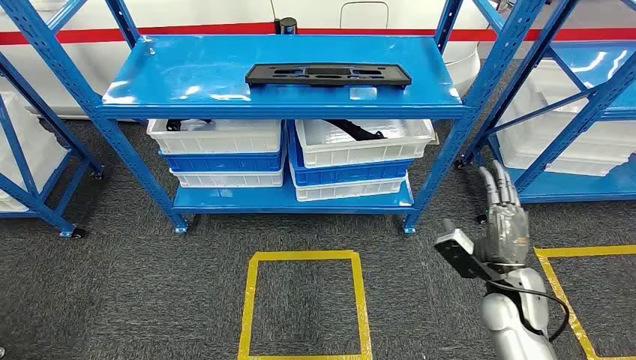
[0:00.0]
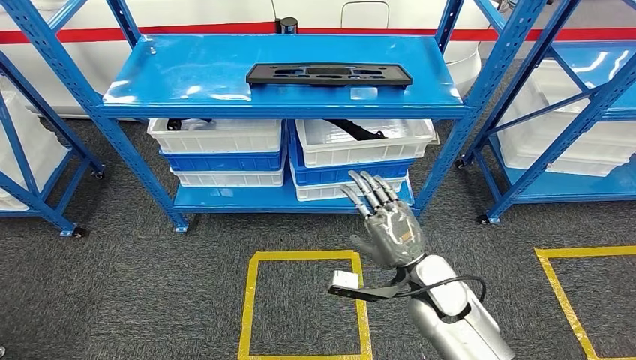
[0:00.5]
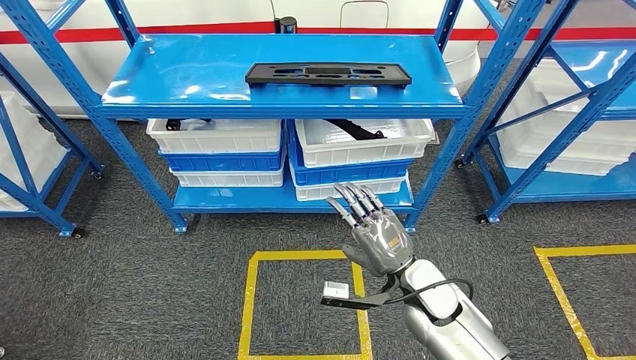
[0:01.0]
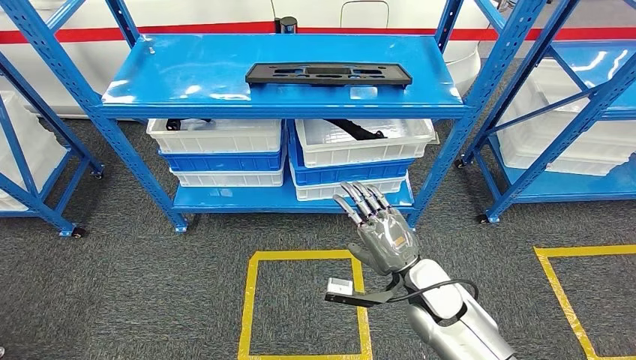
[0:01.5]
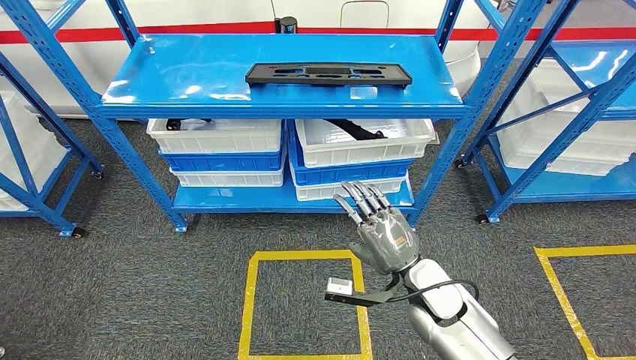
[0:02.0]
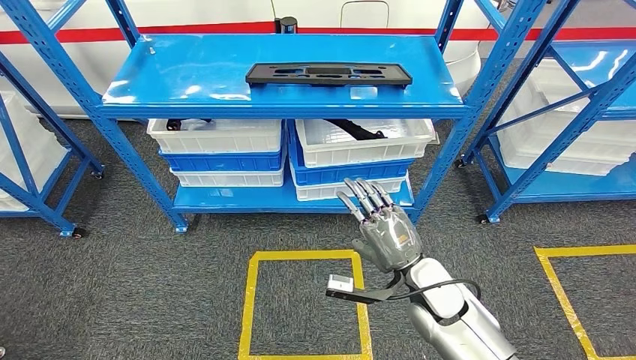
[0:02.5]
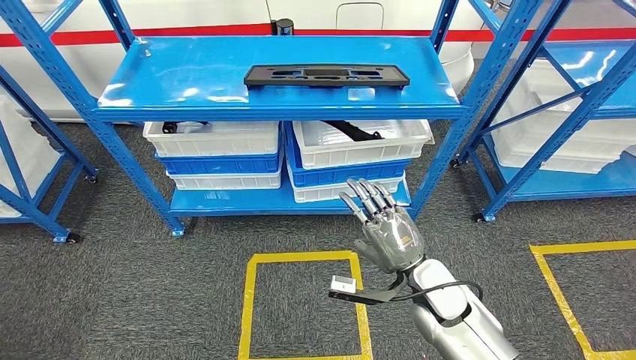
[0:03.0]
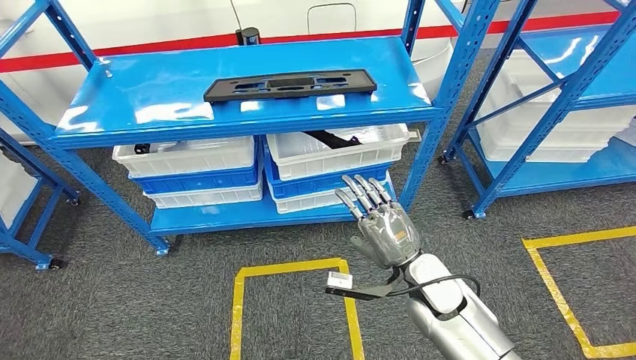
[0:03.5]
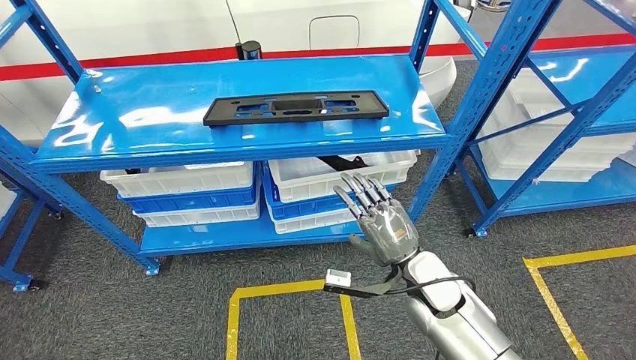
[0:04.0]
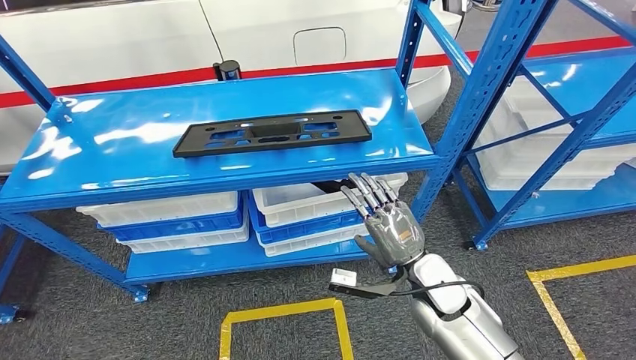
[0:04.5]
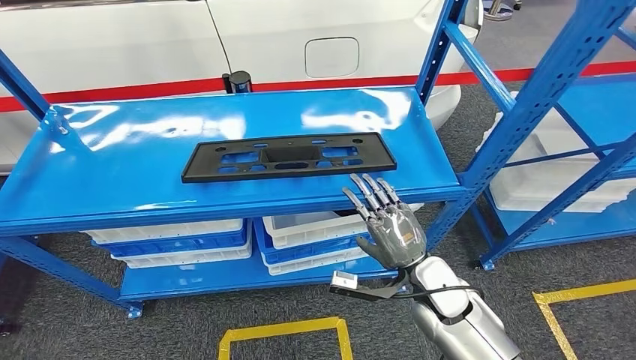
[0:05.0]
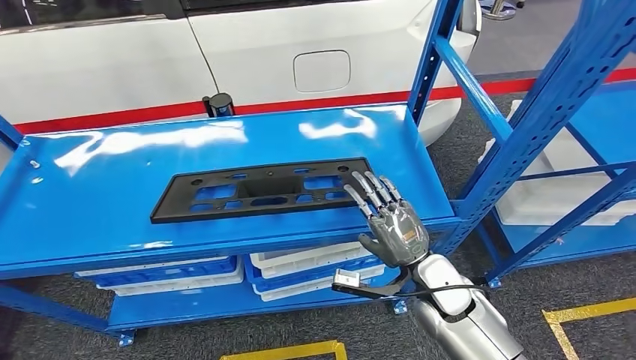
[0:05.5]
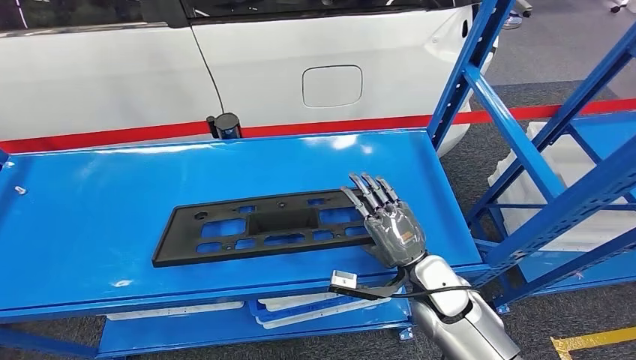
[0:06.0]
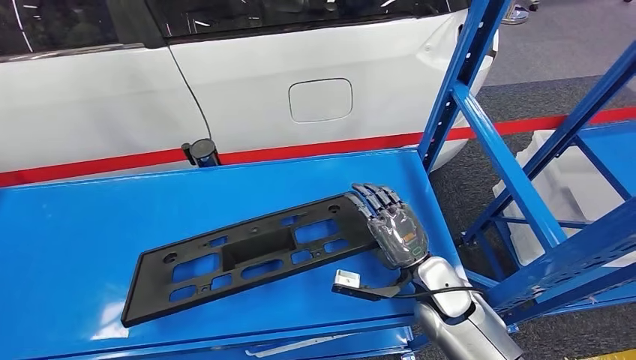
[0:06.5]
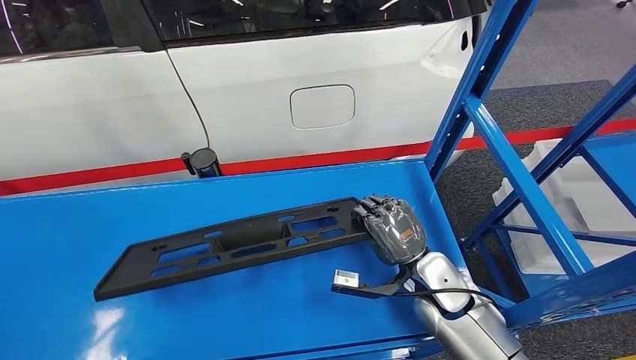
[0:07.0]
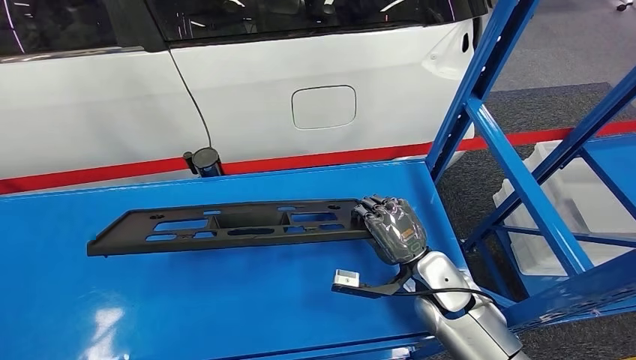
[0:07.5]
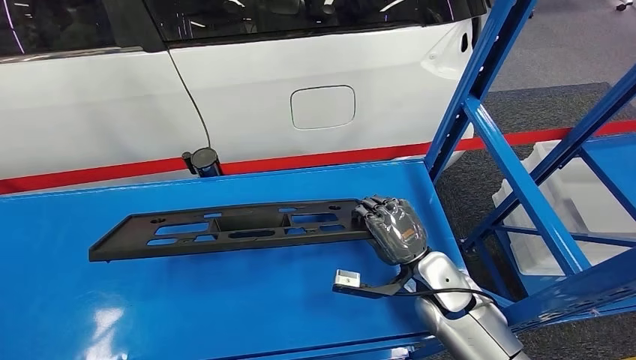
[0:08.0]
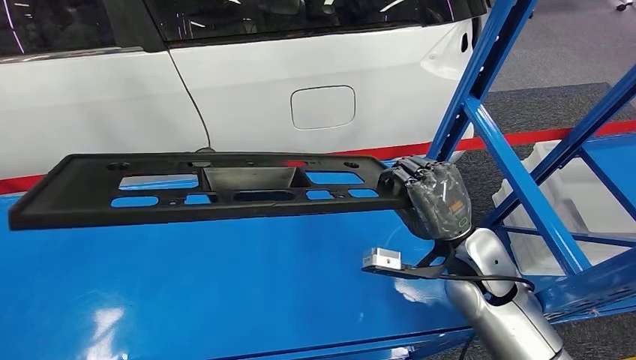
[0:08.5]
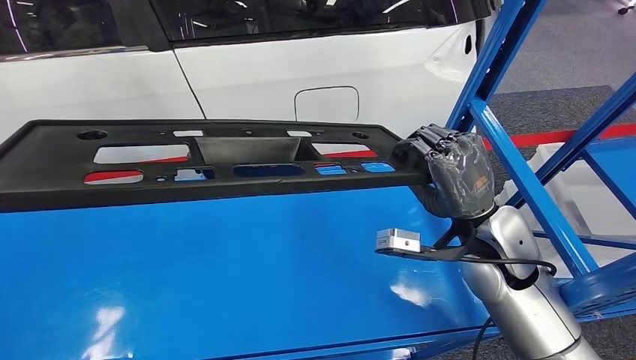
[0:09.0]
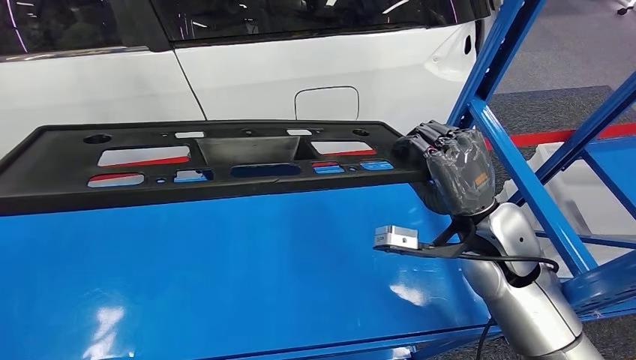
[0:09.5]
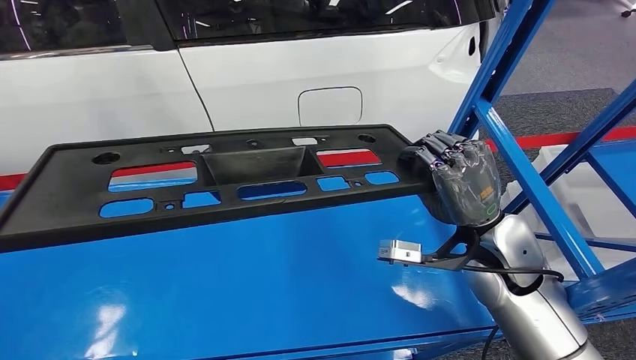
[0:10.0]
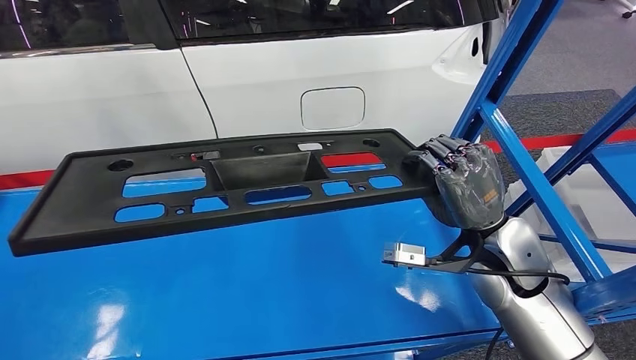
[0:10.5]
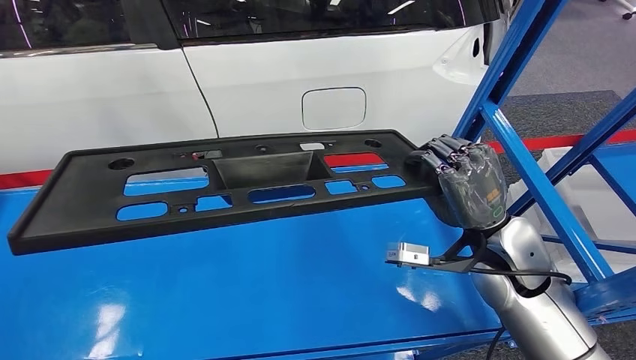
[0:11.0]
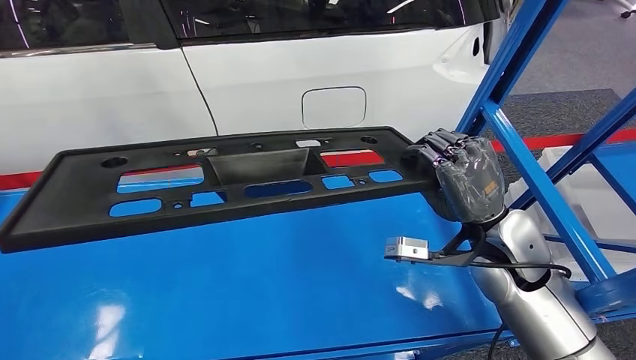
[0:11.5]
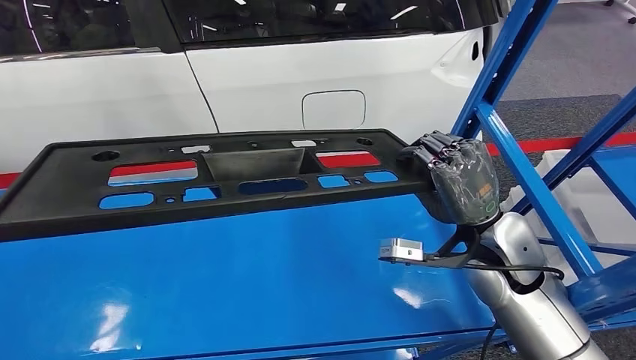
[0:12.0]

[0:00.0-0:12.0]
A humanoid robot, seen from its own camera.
Step, 0:00.0 to 0:09.0: Pick up the large material from the shelf.

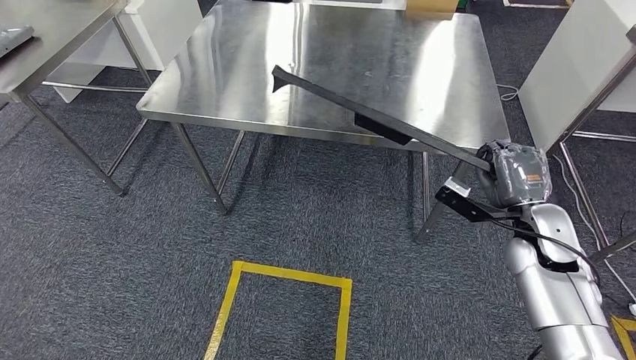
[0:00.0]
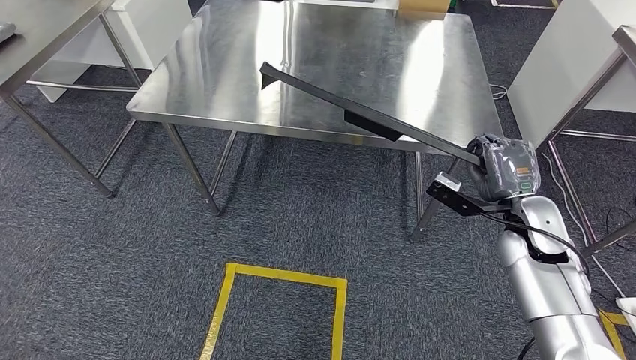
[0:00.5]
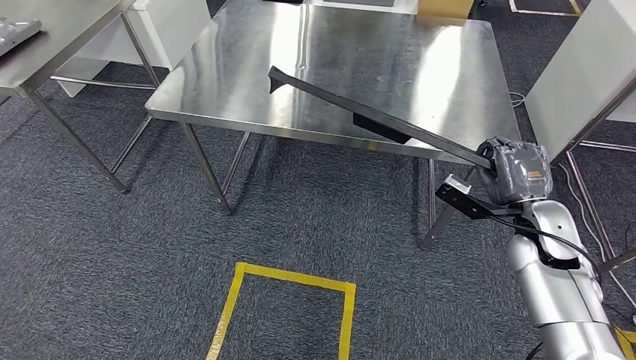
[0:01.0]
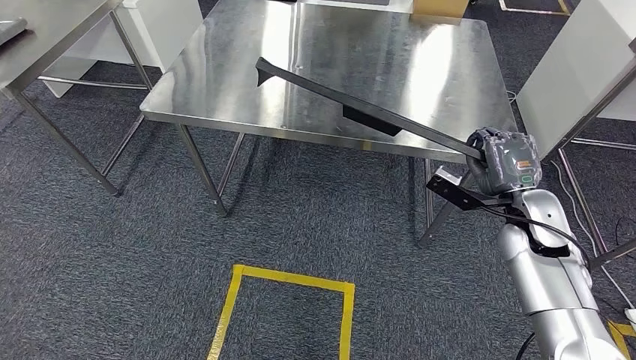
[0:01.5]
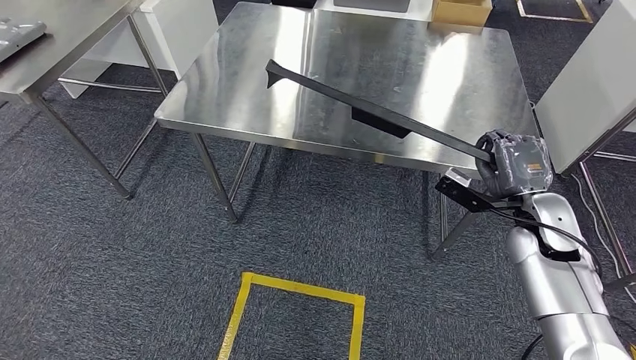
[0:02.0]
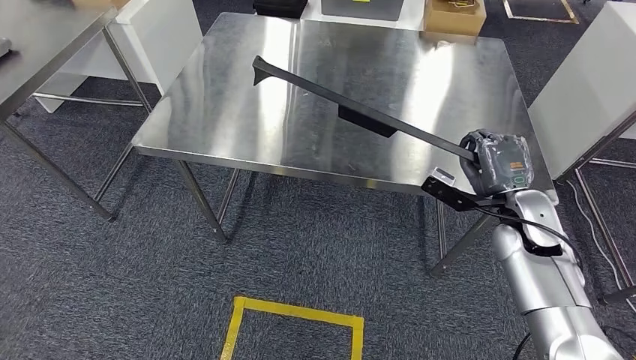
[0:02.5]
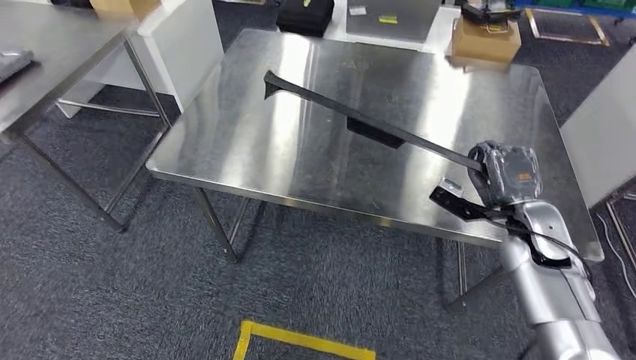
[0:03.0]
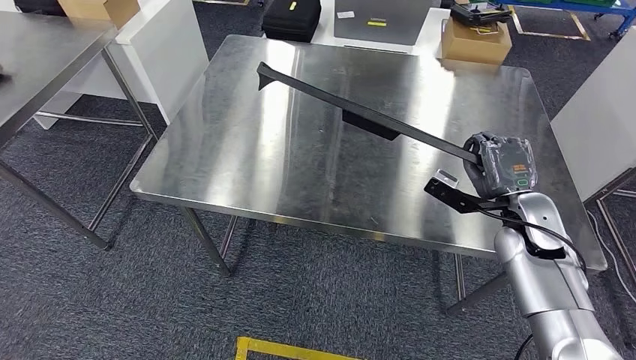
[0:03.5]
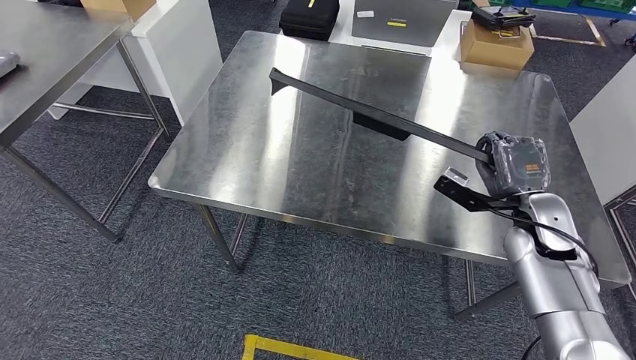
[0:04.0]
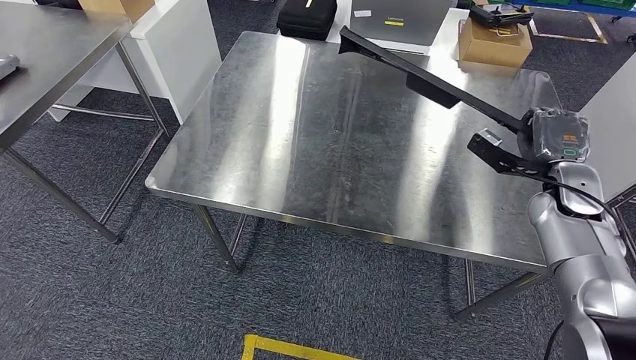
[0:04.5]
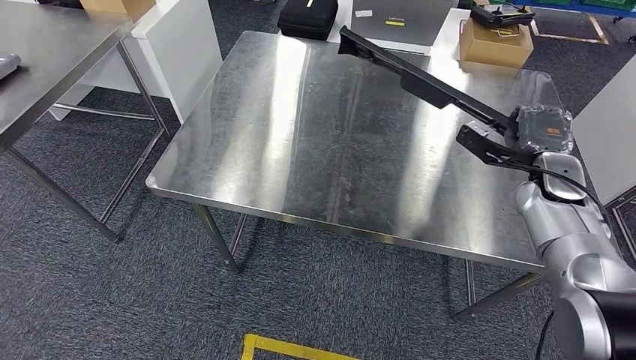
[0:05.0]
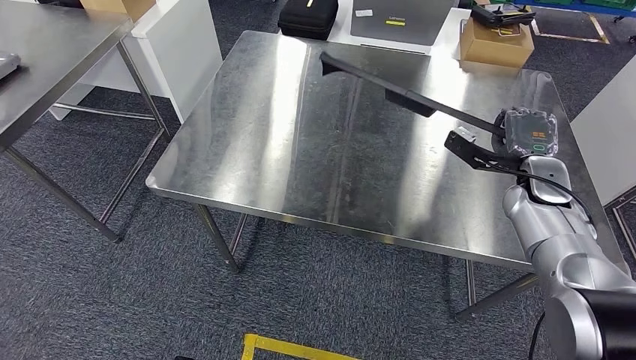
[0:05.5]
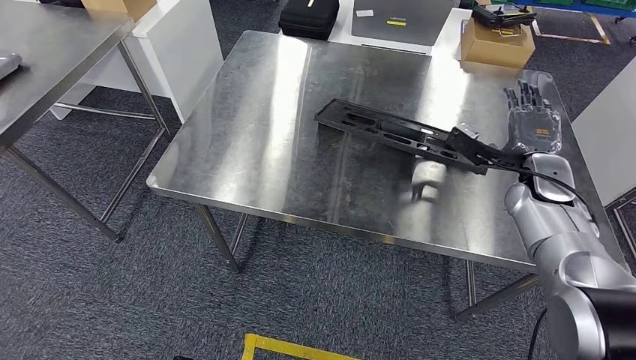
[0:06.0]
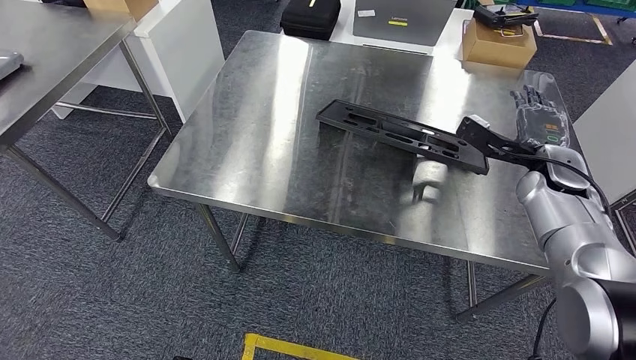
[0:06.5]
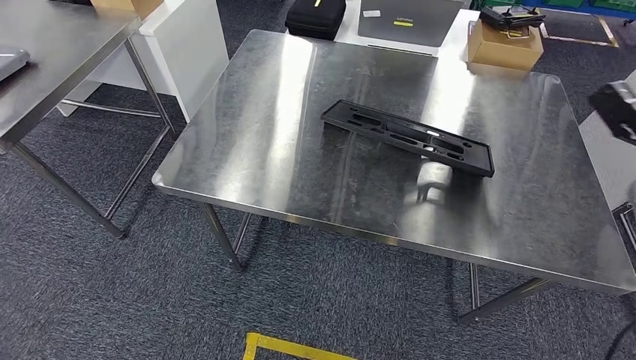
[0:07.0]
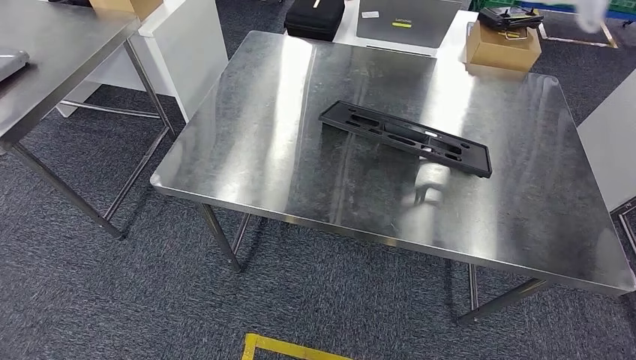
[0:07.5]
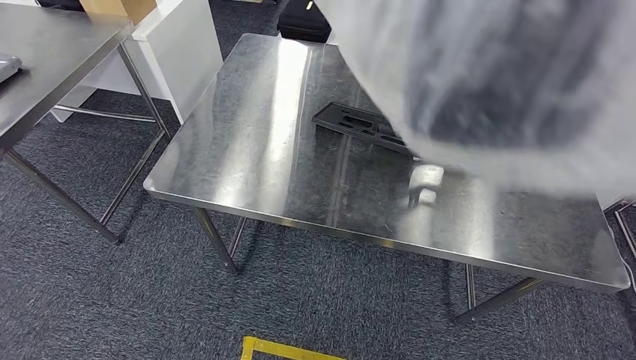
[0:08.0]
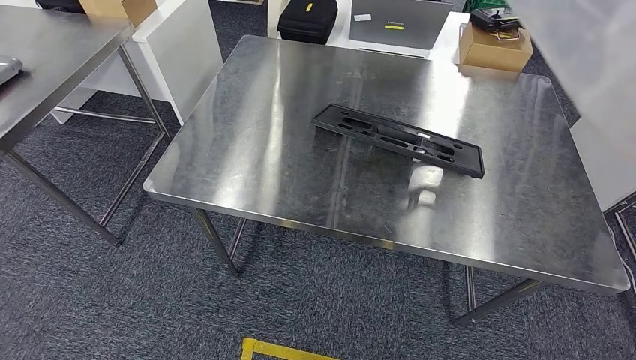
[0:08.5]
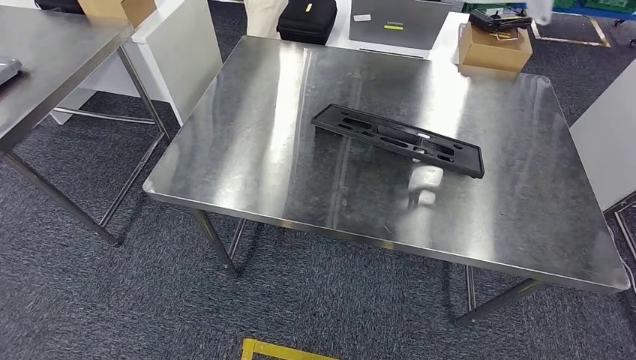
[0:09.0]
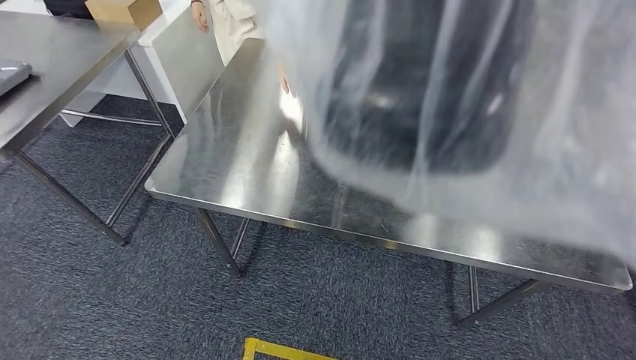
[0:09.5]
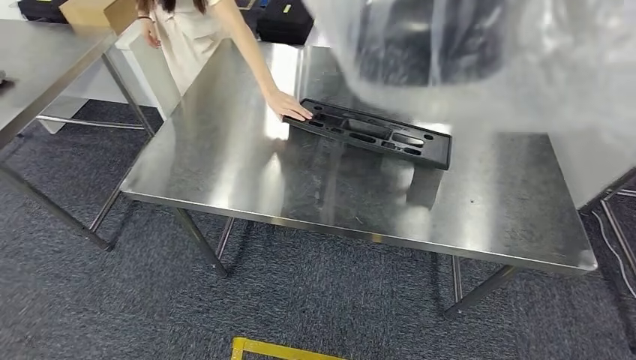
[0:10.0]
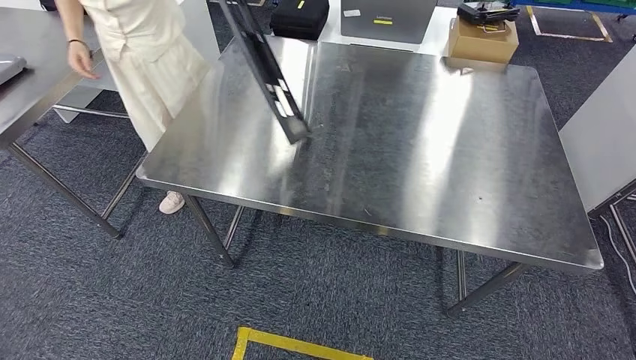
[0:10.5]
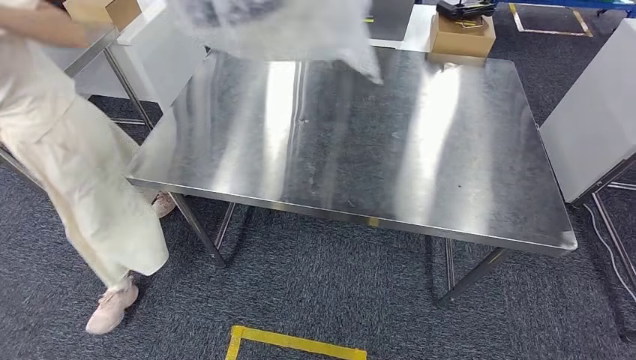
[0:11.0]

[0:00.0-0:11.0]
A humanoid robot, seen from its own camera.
Step, 0:01.5 to 0:07.5: Insert the large material into the corresponding slot on the workbench.
0:07.5 to 0:09.0: The right hand moves to the left, downward and backward, roughly 50 cm.
